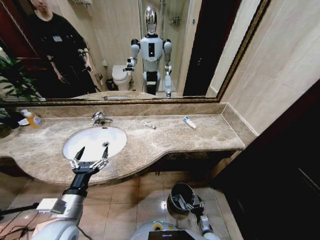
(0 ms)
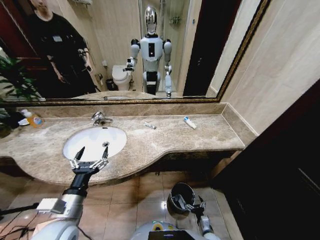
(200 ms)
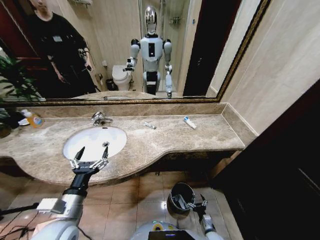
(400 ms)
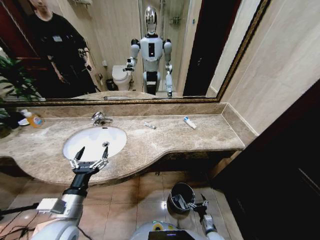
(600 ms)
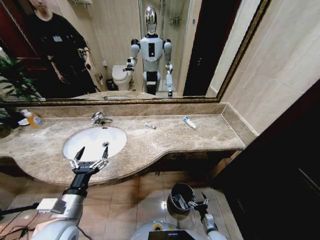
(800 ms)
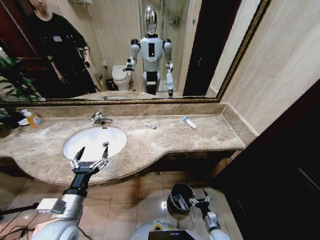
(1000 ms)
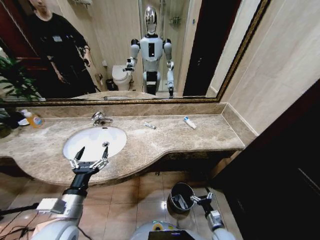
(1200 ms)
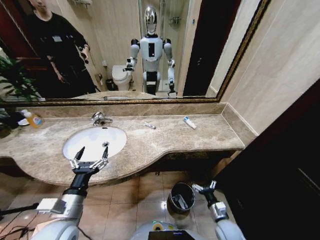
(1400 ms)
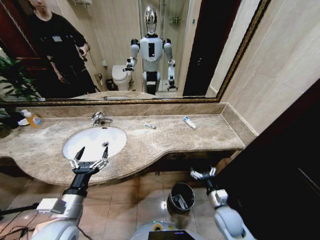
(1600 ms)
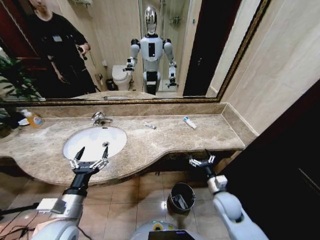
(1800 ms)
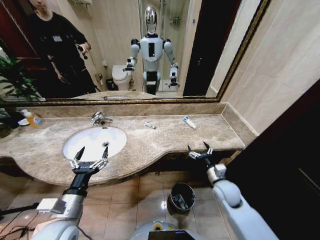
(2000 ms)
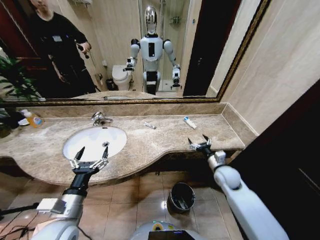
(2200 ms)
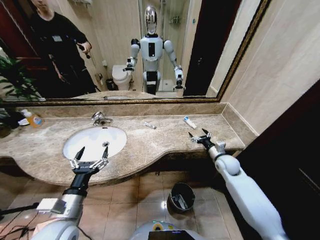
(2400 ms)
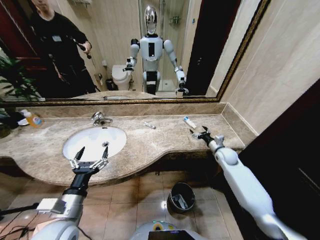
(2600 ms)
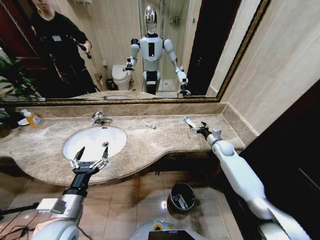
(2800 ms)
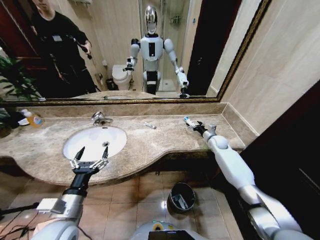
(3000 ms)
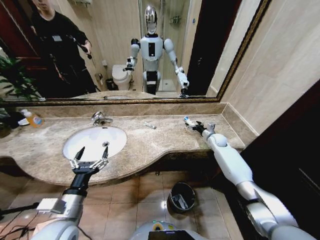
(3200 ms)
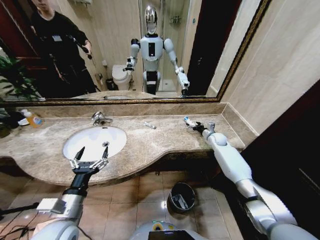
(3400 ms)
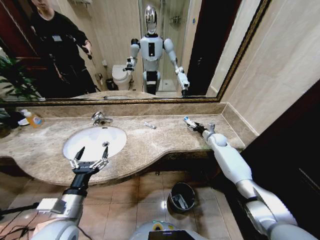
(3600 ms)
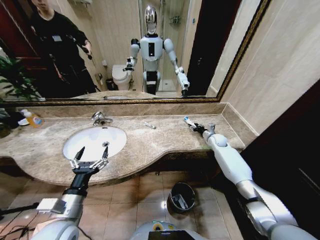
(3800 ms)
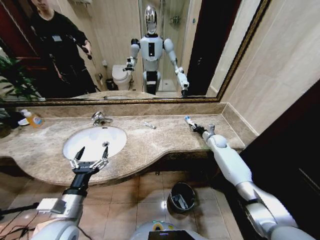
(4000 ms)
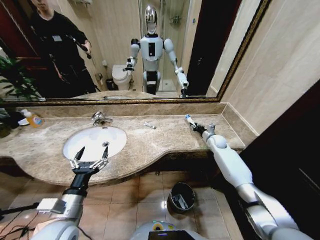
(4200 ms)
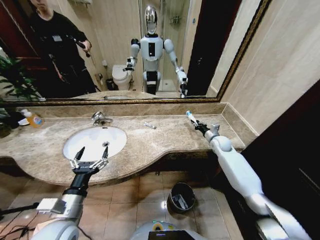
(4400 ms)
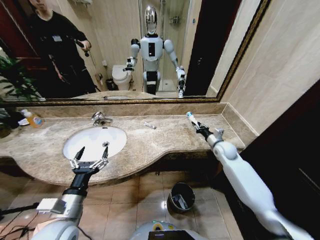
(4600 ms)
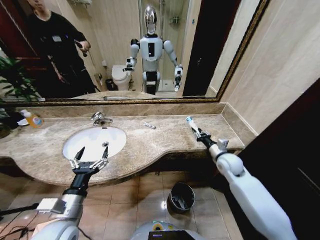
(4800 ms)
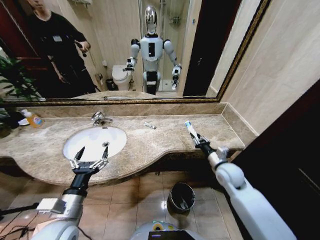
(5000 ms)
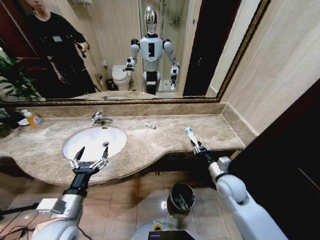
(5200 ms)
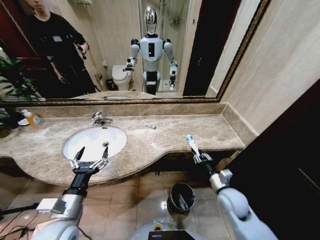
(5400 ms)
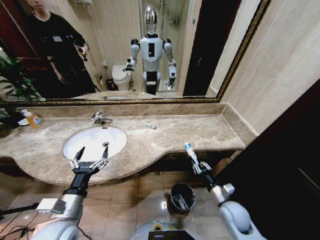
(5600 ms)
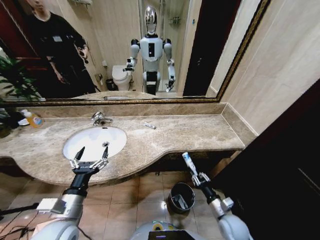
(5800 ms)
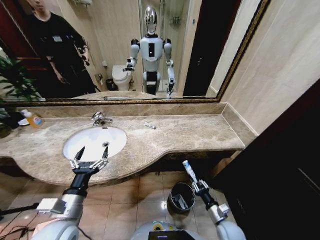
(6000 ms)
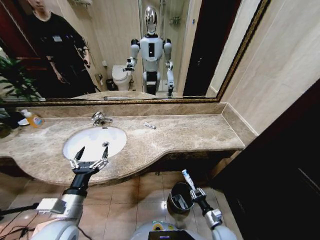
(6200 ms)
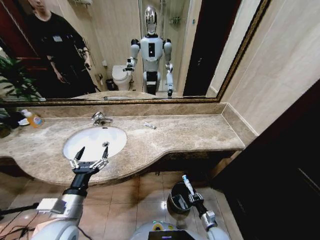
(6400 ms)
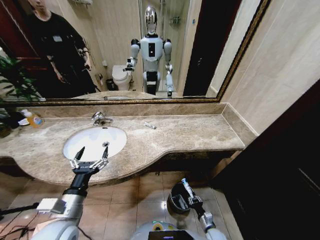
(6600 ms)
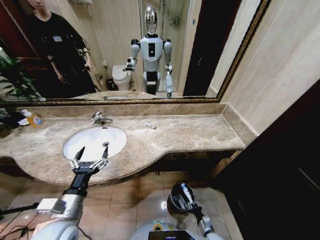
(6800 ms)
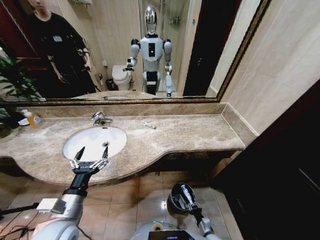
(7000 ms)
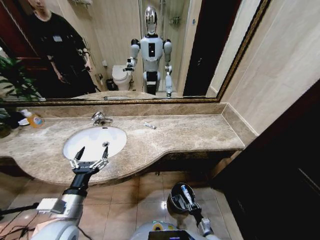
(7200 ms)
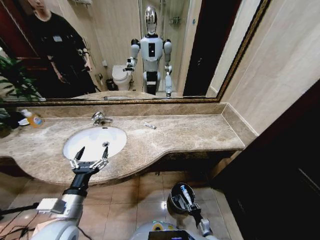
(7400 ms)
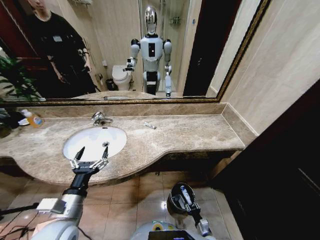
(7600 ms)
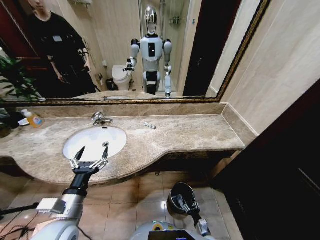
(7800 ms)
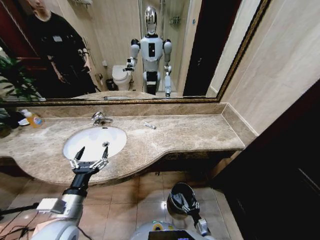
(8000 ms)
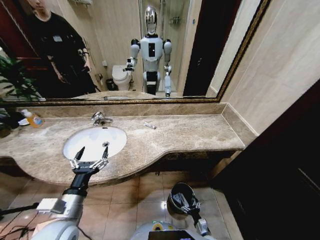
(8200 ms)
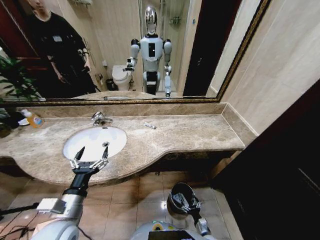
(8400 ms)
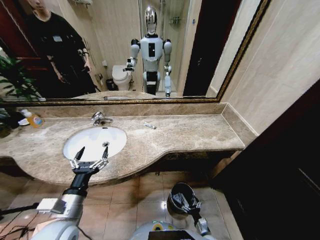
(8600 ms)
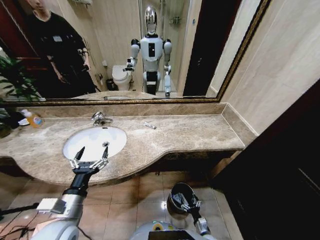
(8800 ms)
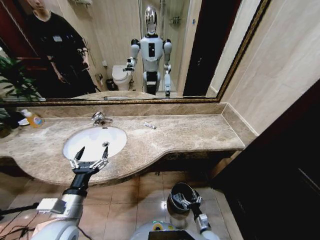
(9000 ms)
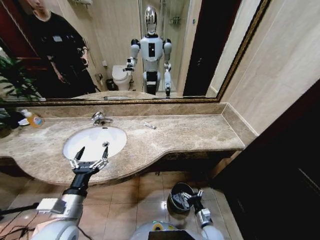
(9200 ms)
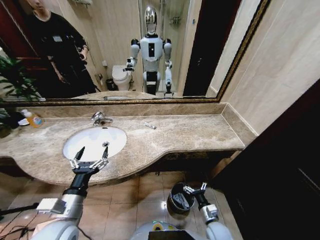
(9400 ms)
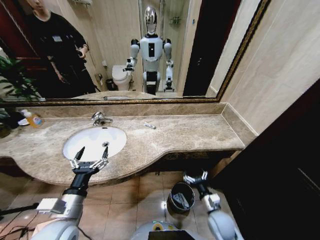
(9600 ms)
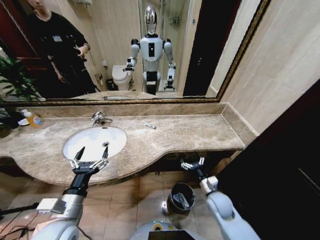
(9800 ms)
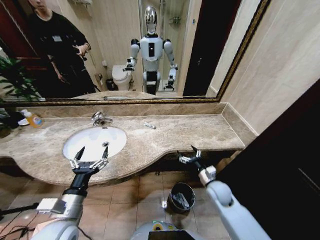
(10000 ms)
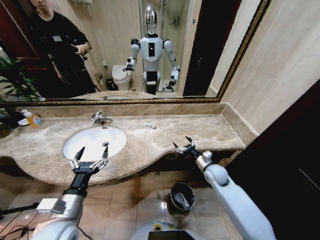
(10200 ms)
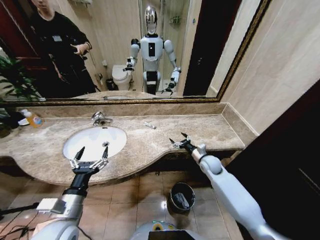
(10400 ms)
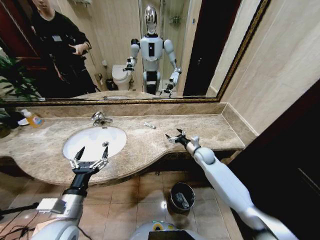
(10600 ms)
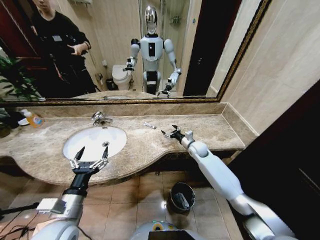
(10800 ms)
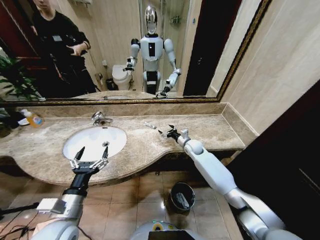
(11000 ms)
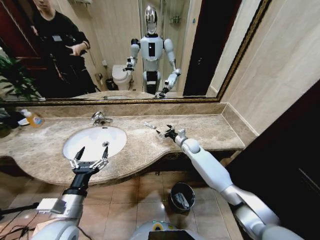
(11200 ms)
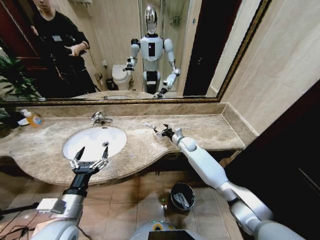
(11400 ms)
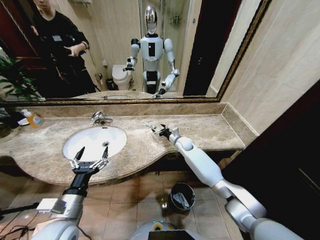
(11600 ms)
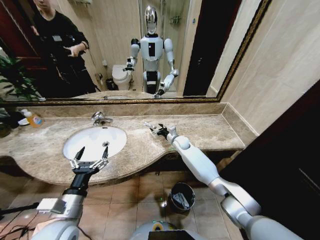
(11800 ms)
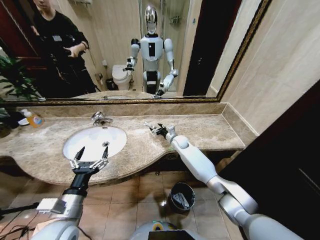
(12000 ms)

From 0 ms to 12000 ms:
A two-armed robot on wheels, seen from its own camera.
Task of the whole recording: Pick up the trash from the sink and place it in the trash bin.
From 0 ms to 1600 ms: The right gripper heads upward, covering about 25 cm.
From 1600 ms to 3000 ms: The right gripper heads forward, covering approximately 35 cm.
From 3000 ms to 4400 ms: The right gripper closes its fingers.
From 4400 ms to 6000 ms: The right gripper heads backward and downward, covering roughly 40 cm.
From 6000 ms to 7600 ms: The right gripper is displaced downward by some 15 cm.
From 7600 ms to 9000 ms: The right gripper opens.
From 9000 ms to 10400 ms: The right gripper travels upward and forward by about 40 cm.
From 10400 ms to 12000 ms: The right gripper heads forward and to the left, covering roughly 20 cm.

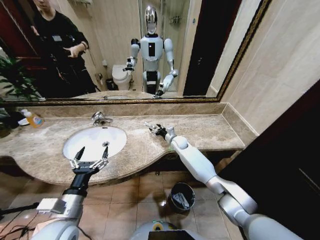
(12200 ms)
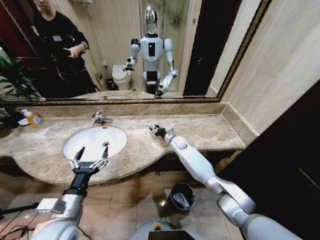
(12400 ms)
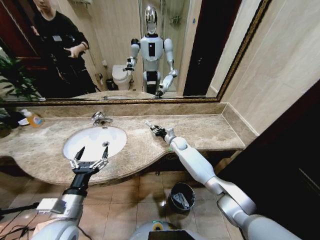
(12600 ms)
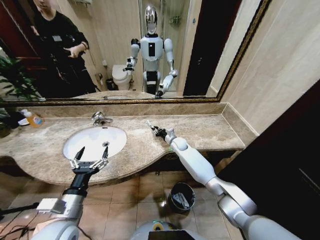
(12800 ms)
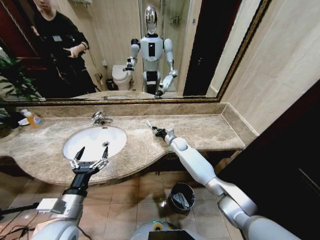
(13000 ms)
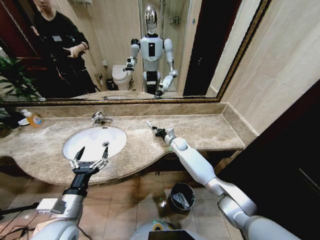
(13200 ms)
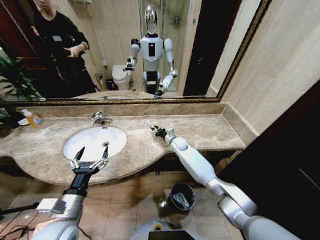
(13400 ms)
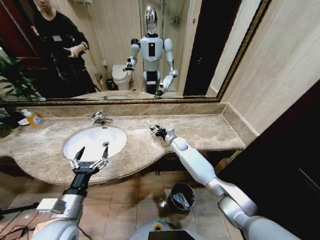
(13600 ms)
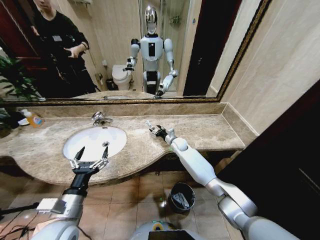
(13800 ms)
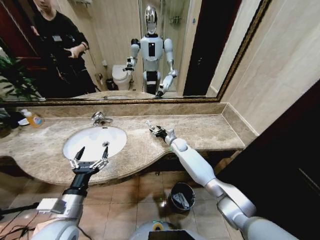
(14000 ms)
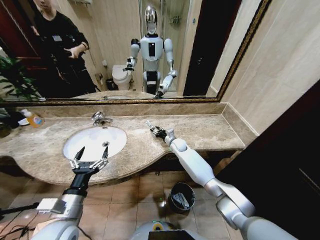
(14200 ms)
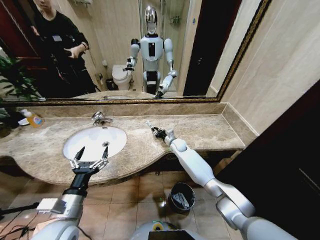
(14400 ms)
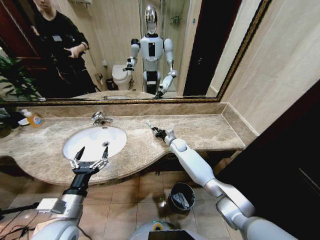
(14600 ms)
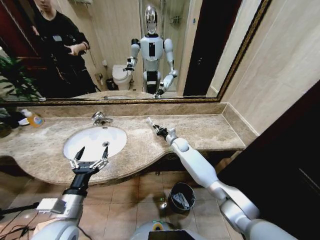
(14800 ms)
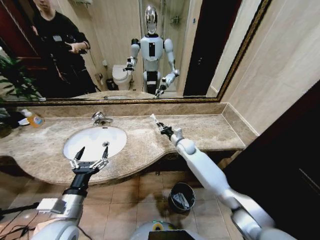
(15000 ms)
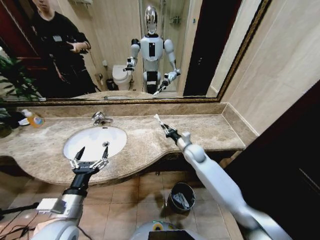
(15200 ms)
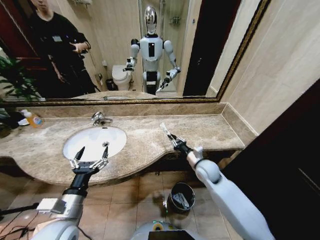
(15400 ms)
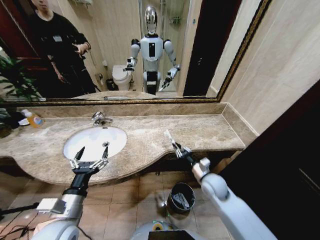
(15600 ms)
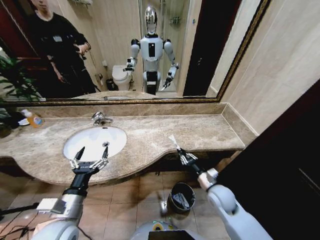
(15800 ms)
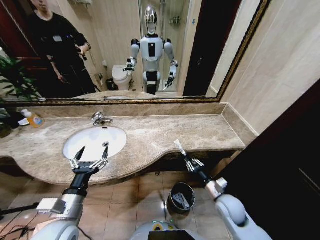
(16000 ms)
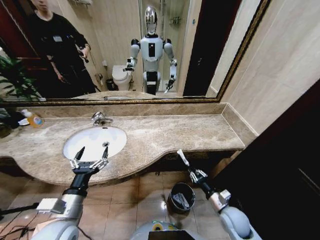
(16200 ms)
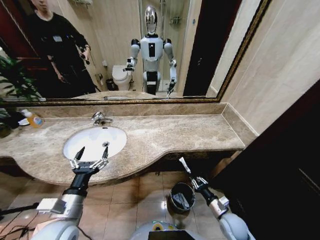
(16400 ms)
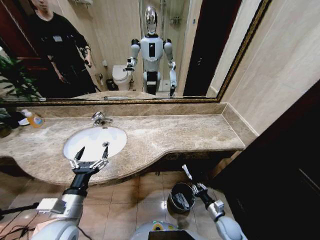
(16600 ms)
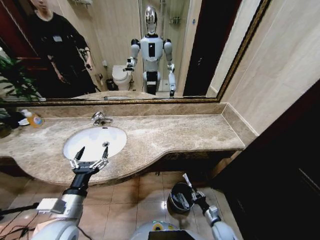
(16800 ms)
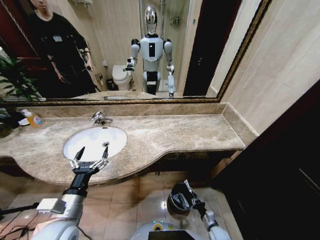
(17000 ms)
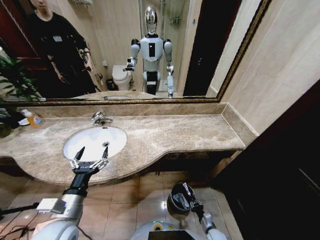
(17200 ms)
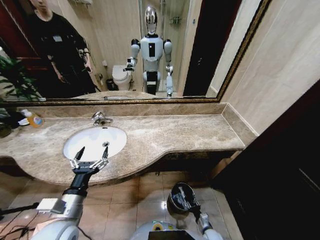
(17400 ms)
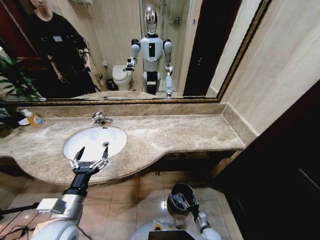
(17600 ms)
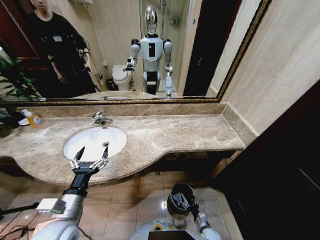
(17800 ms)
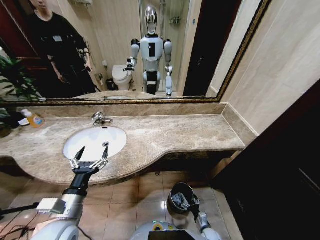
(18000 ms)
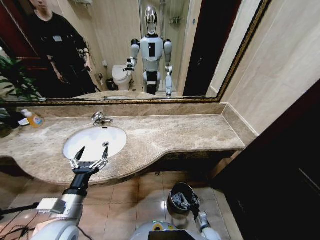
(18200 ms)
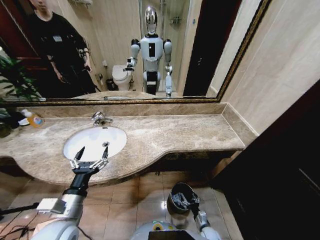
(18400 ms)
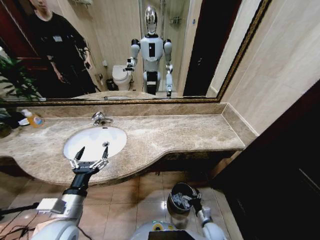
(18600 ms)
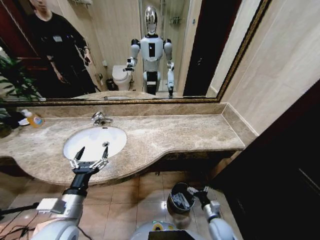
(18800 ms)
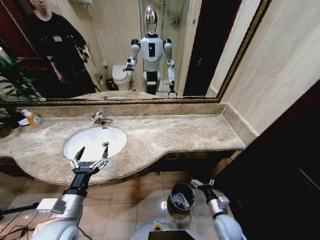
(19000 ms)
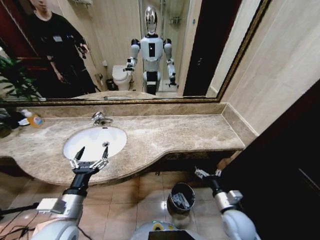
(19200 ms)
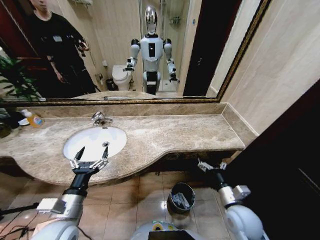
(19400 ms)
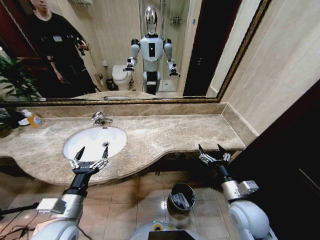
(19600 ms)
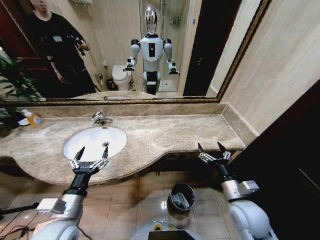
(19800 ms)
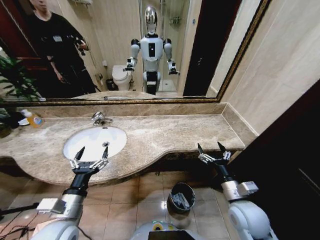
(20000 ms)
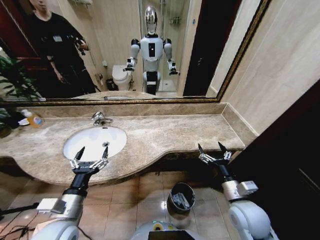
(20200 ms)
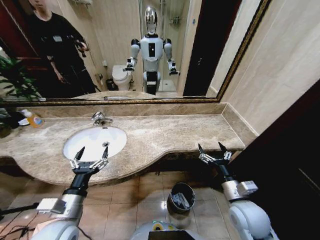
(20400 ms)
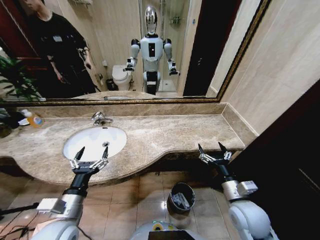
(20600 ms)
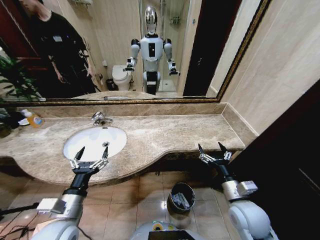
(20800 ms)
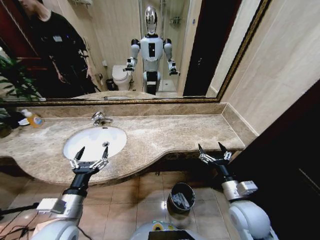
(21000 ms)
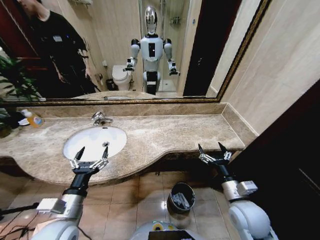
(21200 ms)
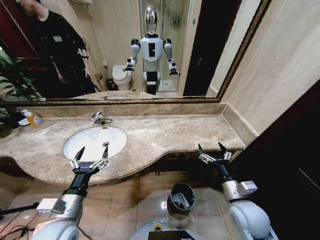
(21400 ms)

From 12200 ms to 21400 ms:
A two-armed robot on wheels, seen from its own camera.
Task of the whole recording: Pick up the trash from the sink and place it in the trash bin.
From 12200 ms to 13800 ms: The right gripper closes, then opens again.
From 13800 ms to 15200 ms: The right gripper travels backward and upward by about 10 cm, and closes its fingers.
From 15200 ms to 16800 ms: The right gripper goes approximately 40 cm downward, backward and to the right.
From 16800 ms to 18400 ms: The right gripper heads to the left, covering about 5 cm, and opens.
From 18400 ms to 19800 ms: The right gripper goes approximately 35 cm upward.
From 19800 ms to 21400 ms: Both grippers stay put.

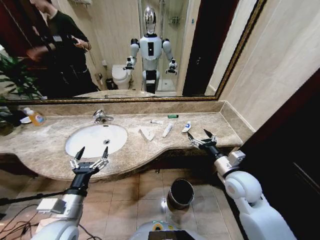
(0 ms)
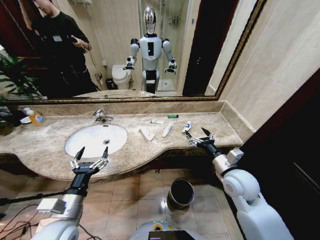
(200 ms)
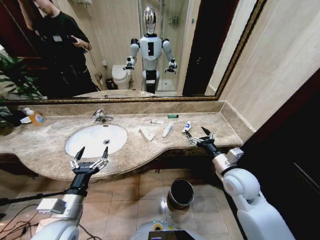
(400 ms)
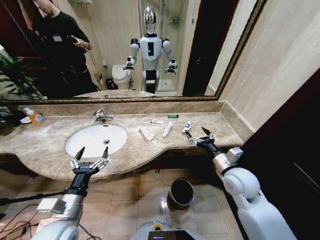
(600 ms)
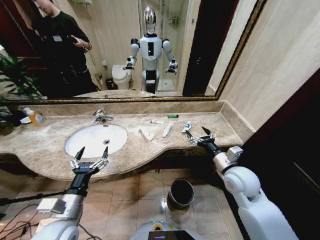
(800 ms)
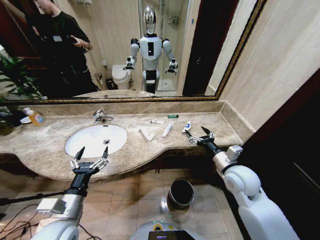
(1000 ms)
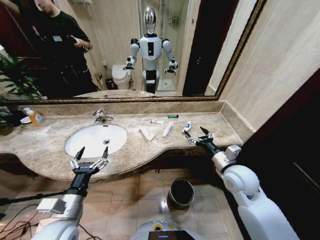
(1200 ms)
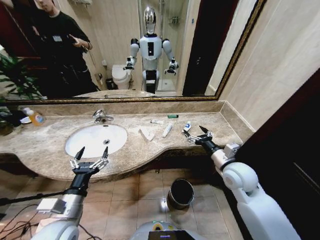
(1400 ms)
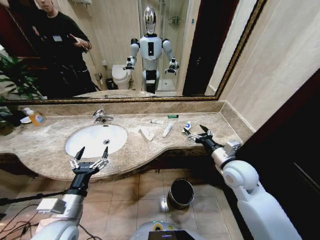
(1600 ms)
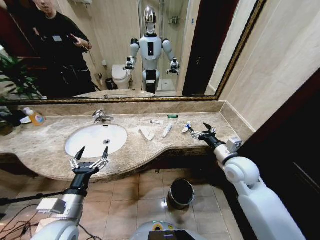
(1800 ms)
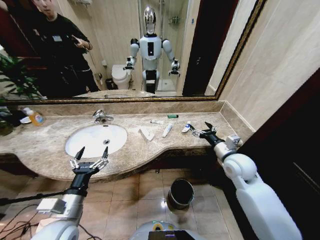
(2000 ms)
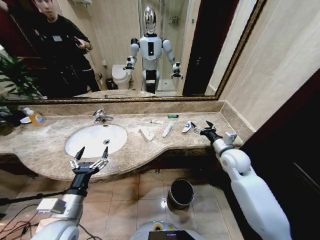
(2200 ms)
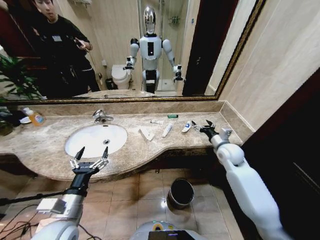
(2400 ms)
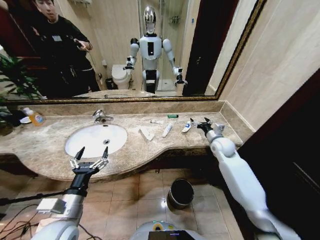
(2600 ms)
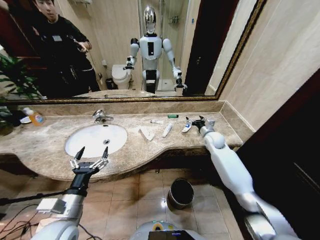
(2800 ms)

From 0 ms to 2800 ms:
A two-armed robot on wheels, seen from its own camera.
Task of the whole recording: Pick up the trash from the sink and place it in the trash bin.
From 1400 ms to 2800 ms: The right gripper shifts some 20 cm forward.
